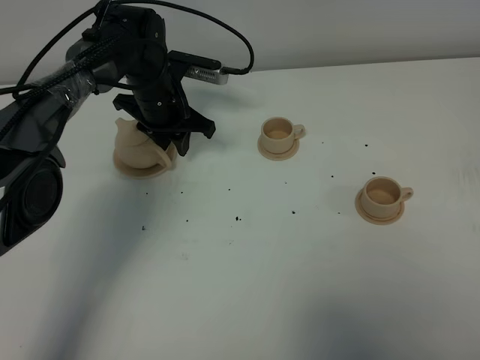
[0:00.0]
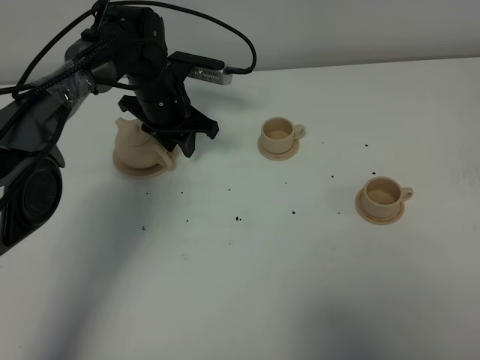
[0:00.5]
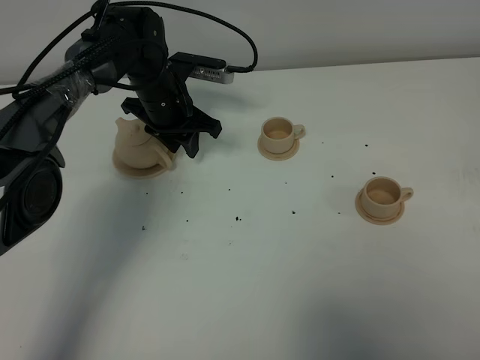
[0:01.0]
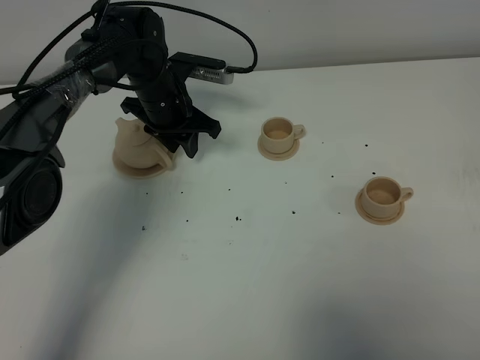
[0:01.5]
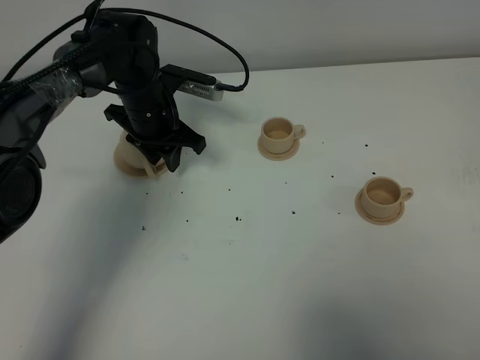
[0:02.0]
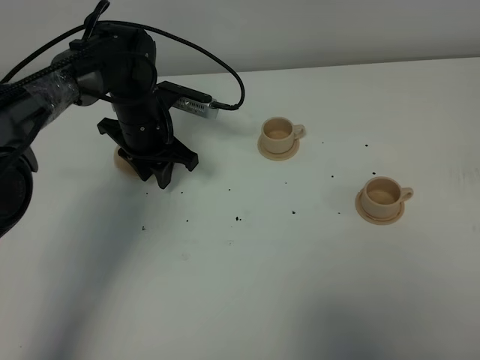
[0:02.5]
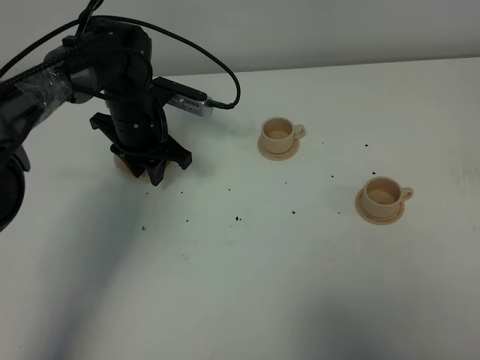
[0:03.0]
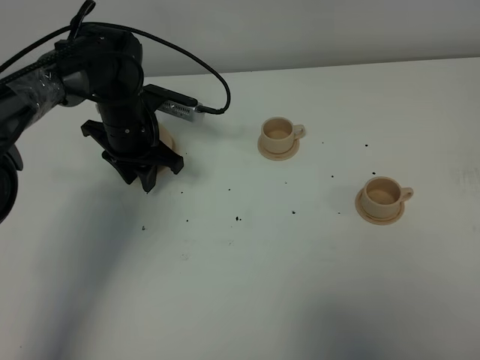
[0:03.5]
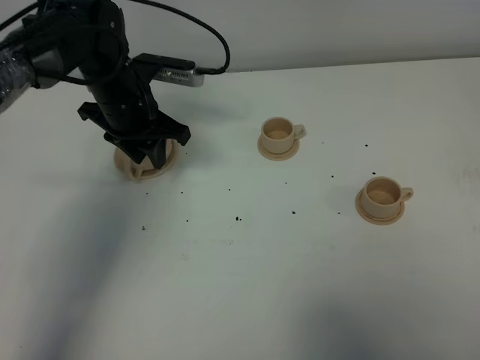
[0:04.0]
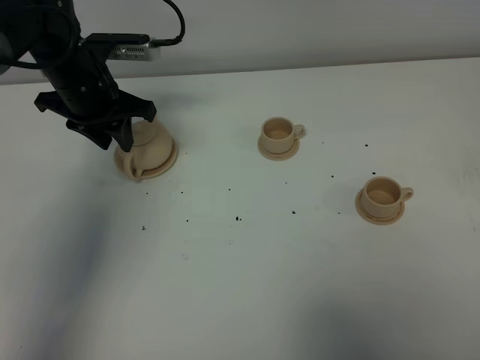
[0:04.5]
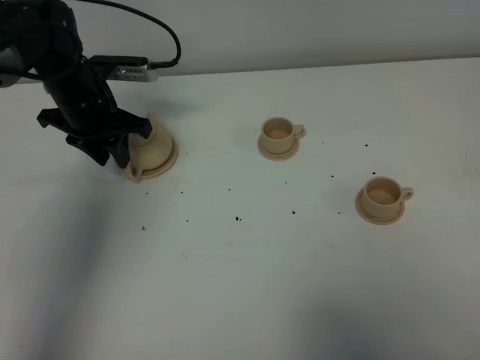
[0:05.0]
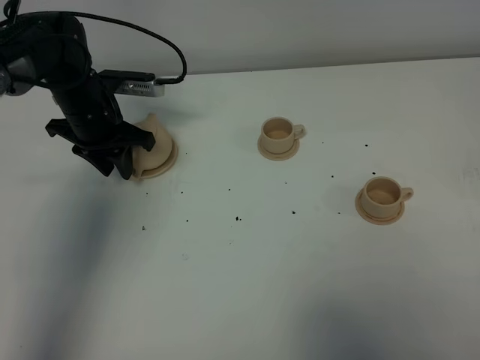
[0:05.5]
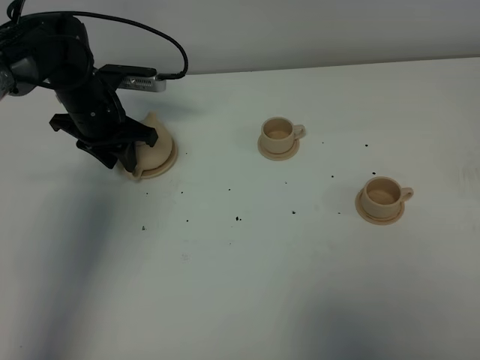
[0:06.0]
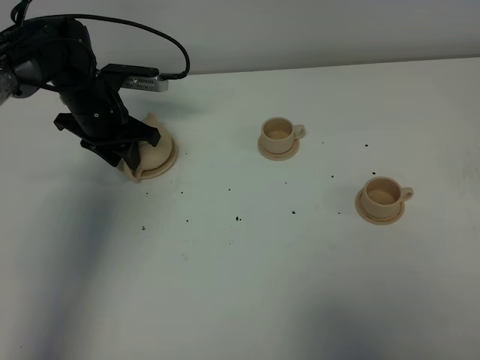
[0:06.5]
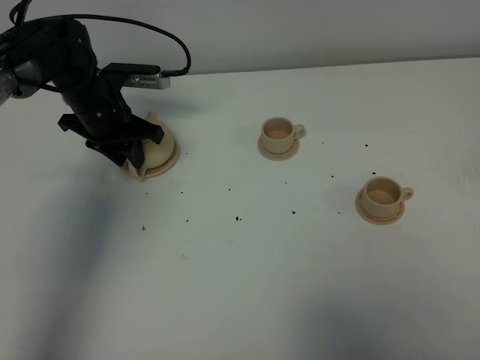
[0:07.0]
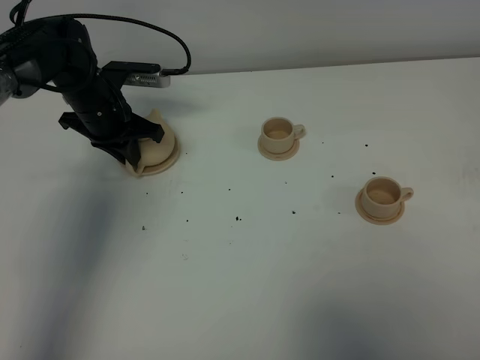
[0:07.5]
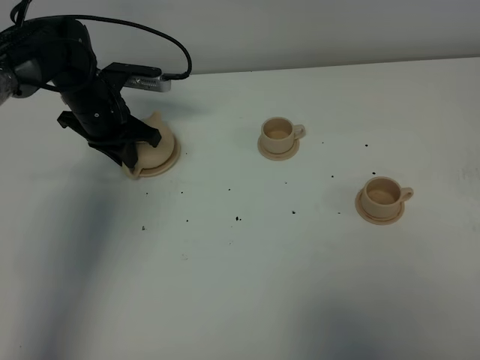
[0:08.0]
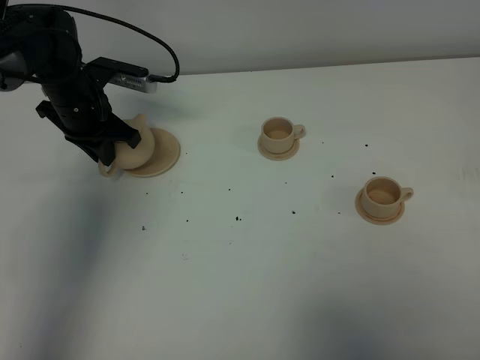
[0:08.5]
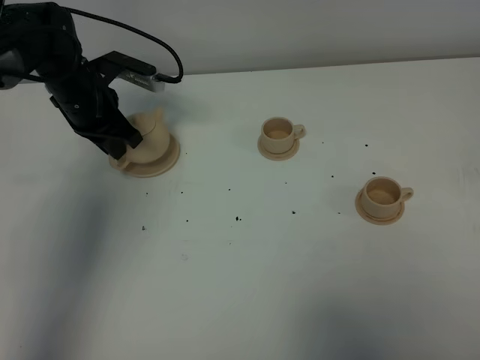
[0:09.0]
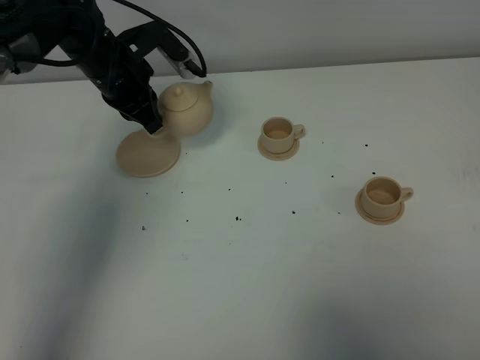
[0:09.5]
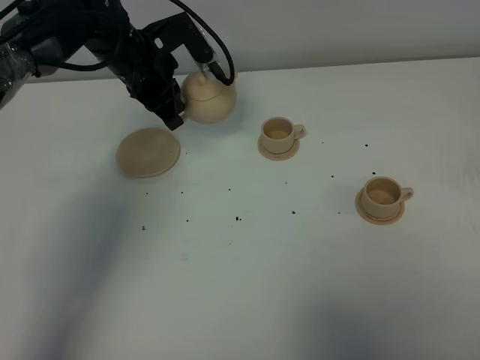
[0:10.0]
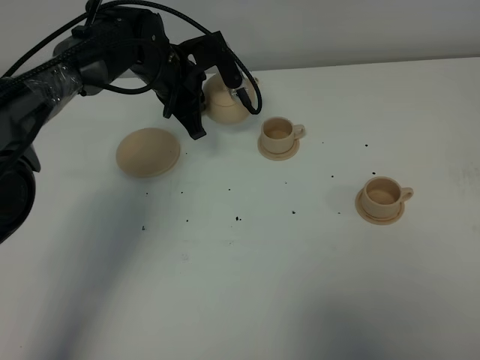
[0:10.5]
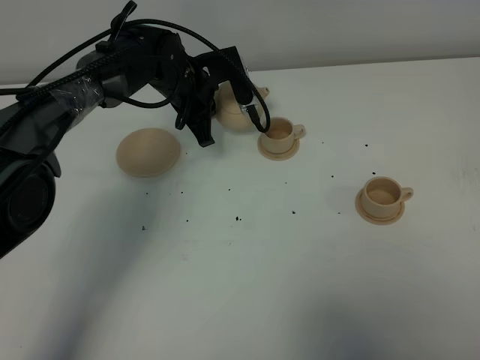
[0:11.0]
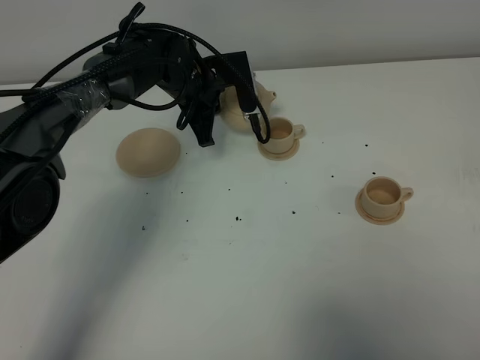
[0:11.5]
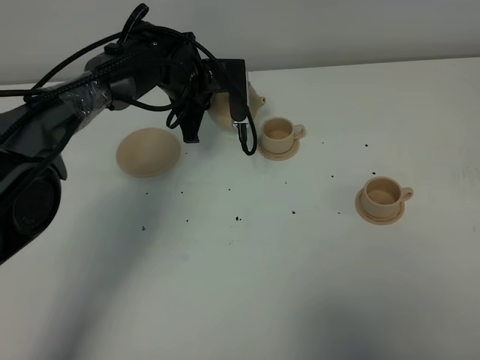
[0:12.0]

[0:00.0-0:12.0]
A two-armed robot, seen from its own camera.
Task of the whole recording: grasp the brown teapot and pour the tea into the two brown teacups one by one, put the brown teapot back in its original place.
Step, 0.0 to 8.5 s: Pick up the teapot with the left gripper.
0.0 to 2.0 s: The grippers make only small movements.
2.0 to 4.0 s: The left gripper moves roughly 5 cm.
4.0 to 6.0 s: The left gripper heads to the left, covering approximately 5 cm.
6.0 to 8.0 s: The left gripper closes.
8.0 to 10.0 s: The left gripper goes about 10 cm to the right and upward.
10.0 to 12.0 s: The left gripper moves downward and to the right, approximately 5 cm.

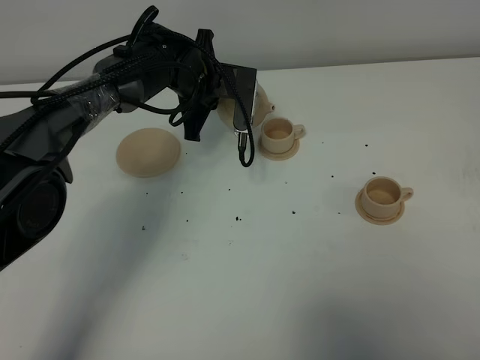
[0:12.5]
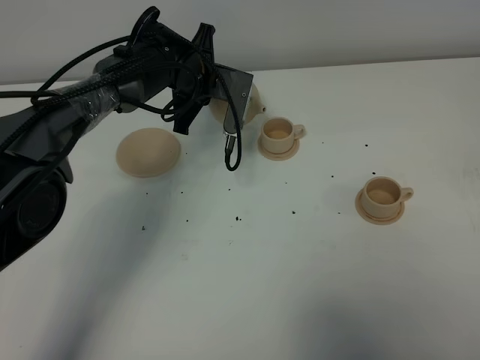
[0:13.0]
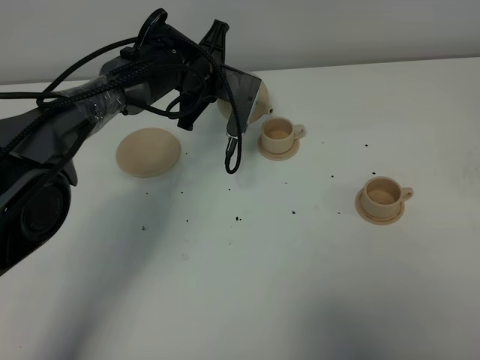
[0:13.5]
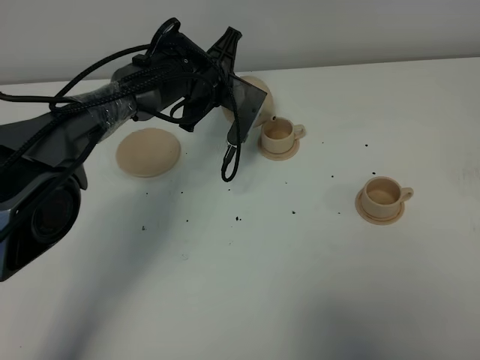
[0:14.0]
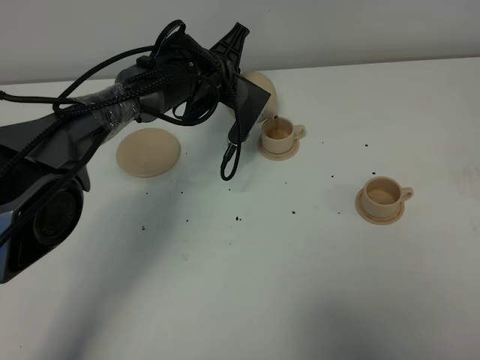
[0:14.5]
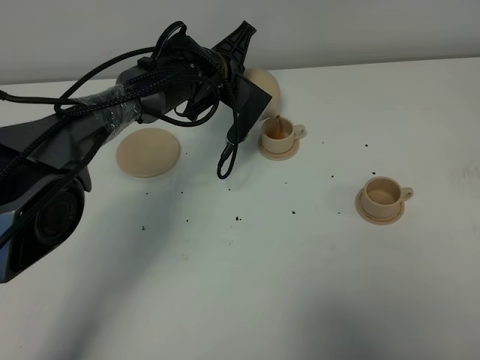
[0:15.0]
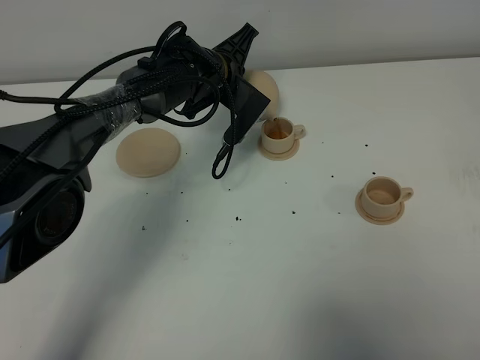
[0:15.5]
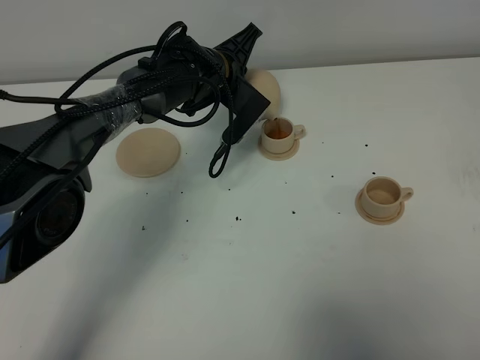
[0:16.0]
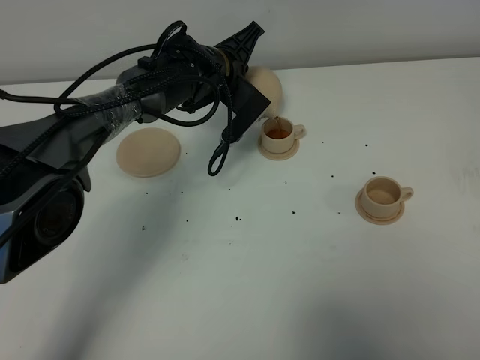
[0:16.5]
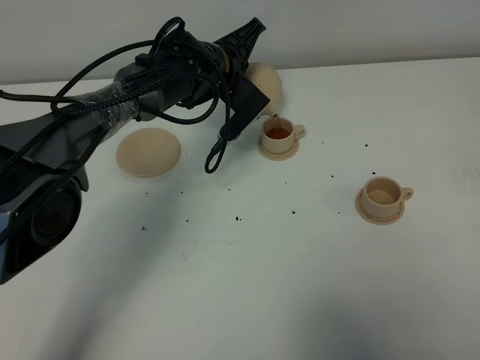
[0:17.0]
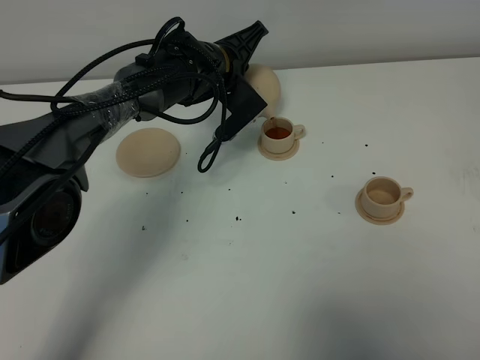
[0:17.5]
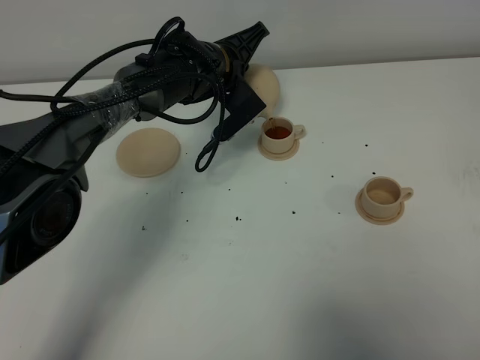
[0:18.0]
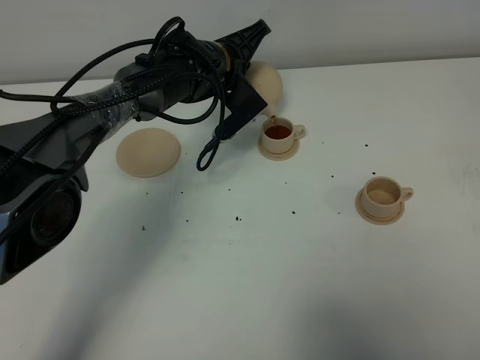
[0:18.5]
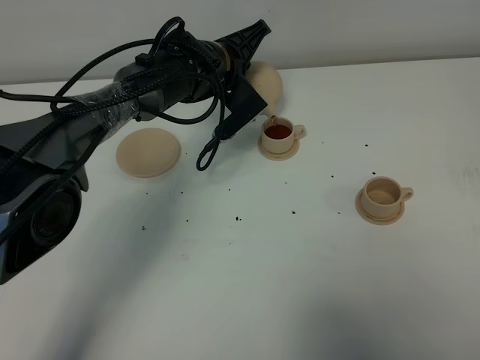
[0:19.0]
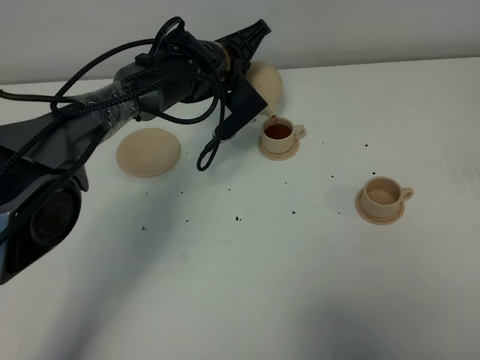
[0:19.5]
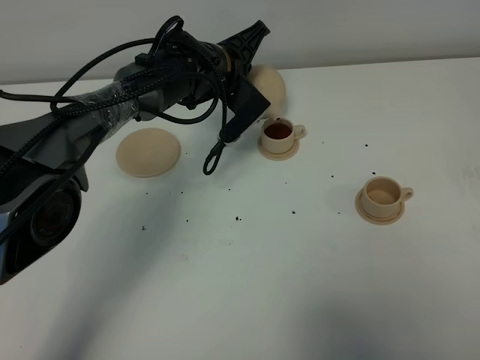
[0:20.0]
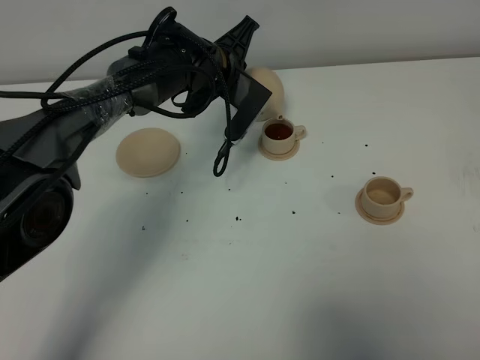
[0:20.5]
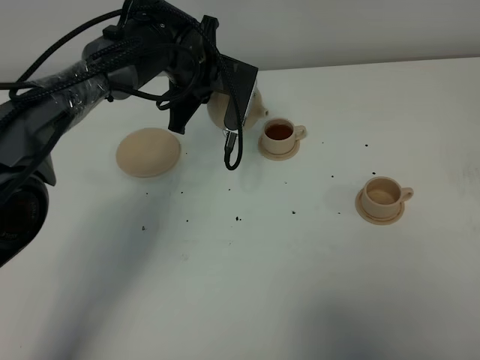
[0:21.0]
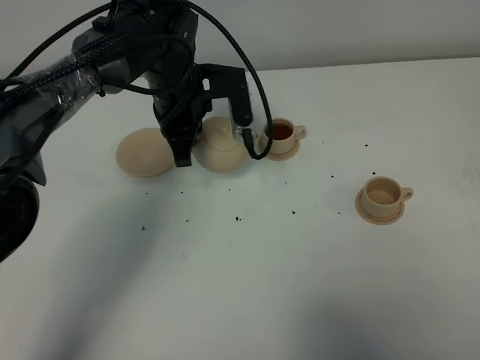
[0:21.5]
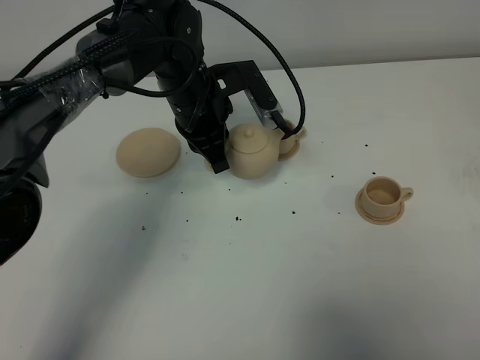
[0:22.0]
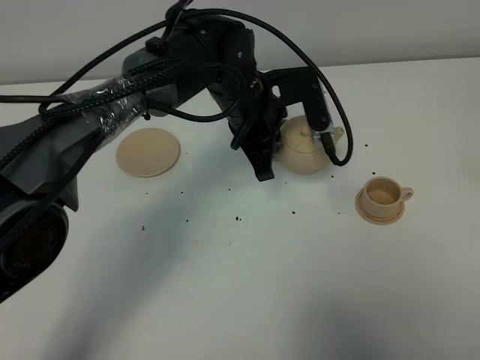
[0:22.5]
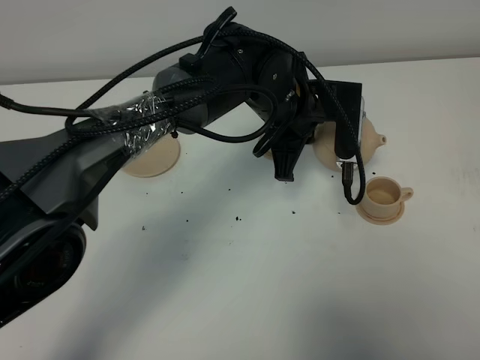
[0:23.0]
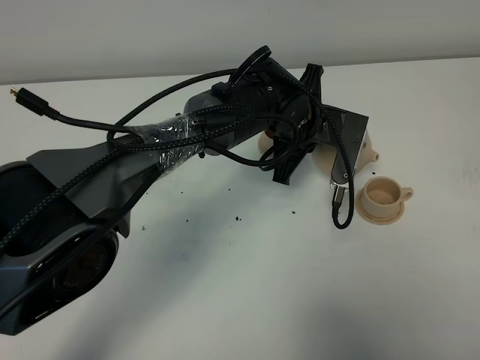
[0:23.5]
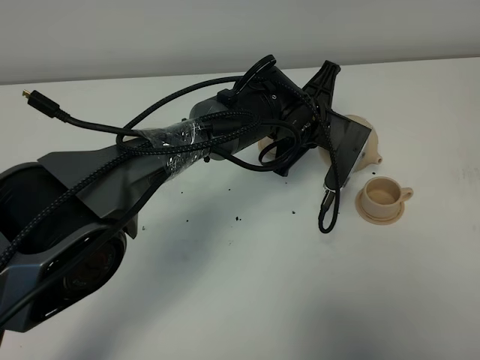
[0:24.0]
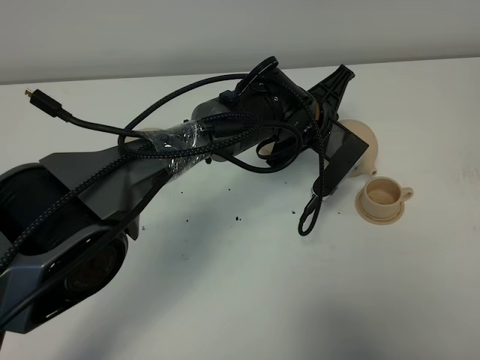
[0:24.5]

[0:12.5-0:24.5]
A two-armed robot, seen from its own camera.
Task of the whole recording: grasp the brown teapot and pour the tea into the two brown teacups one by one, put the brown teapot back in its original place.
Step, 12.5 to 20.5 s: Pour tea into the teacup with the left gripper.
14.5 to 16.5 s: The grippers stay close to where they were, moving slightly.
16.5 to 20.5 s: The grippers move only a little.
20.5 to 22.5 s: The left gripper travels backward and to the right by some 10 cm.
22.5 to 24.5 s: The left gripper moves to the right, approximately 5 cm.

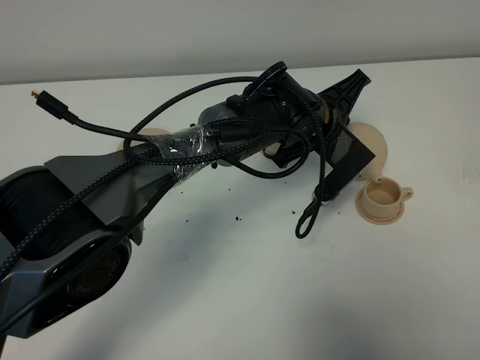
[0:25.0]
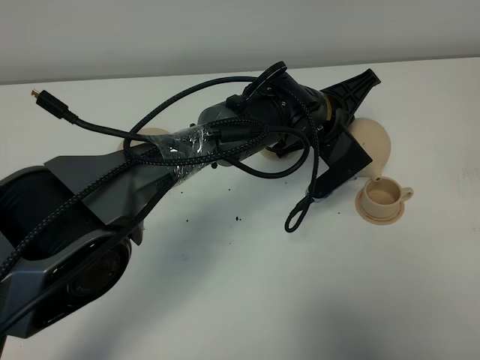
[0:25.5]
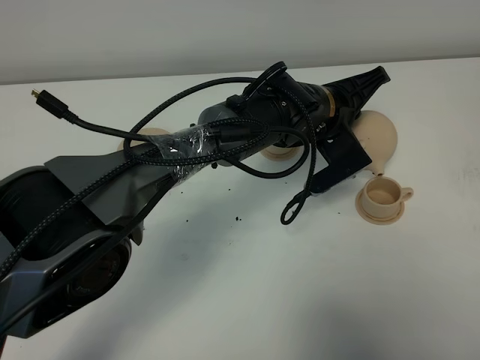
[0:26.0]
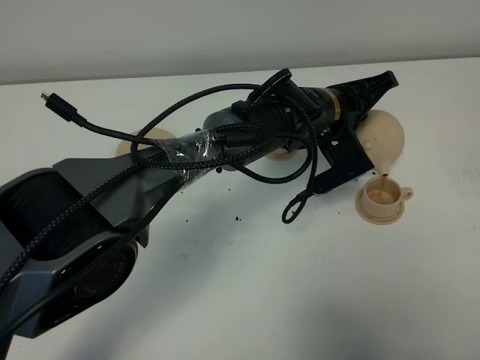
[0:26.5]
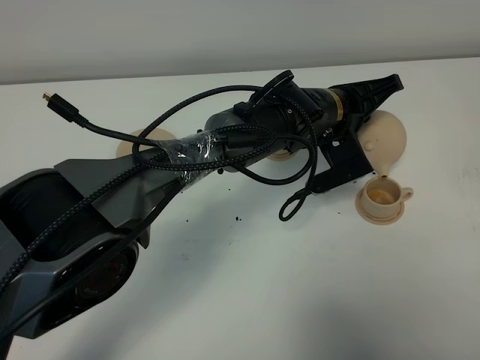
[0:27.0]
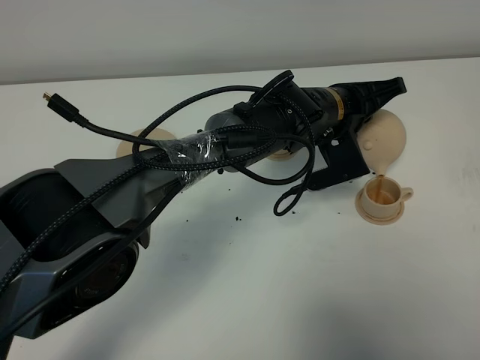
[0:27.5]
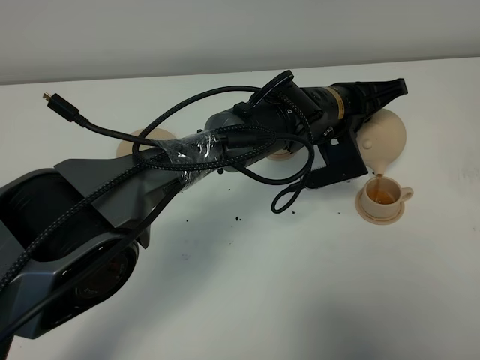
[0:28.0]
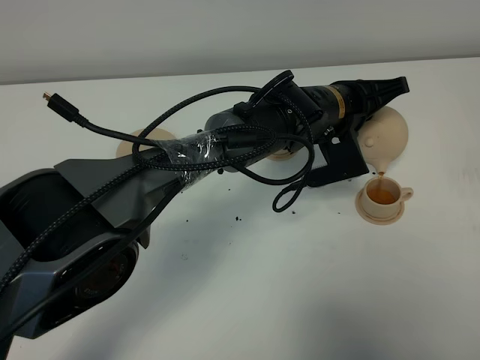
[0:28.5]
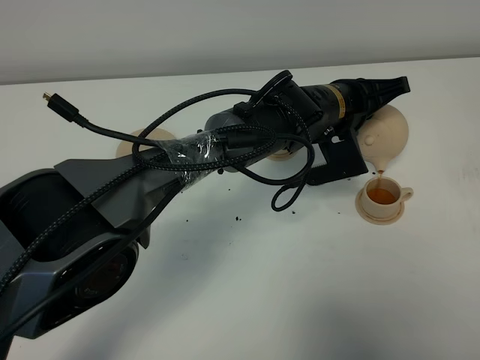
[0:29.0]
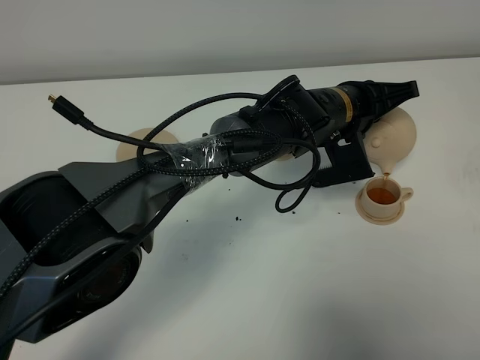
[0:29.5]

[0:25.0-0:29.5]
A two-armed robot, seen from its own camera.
Task of the whole recording: grasp the brown teapot and pour the tea into the two brown teacups one by one, put the brown teapot back in its original place.
27.0 to 29.5 s: The grippers stay close to where they were, moving slightly.
